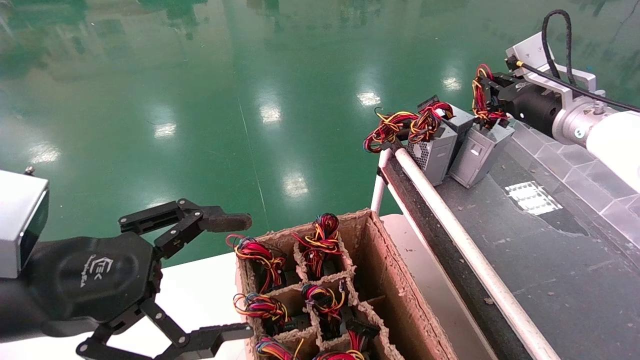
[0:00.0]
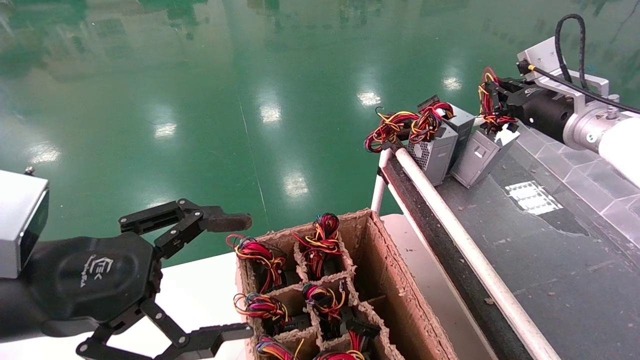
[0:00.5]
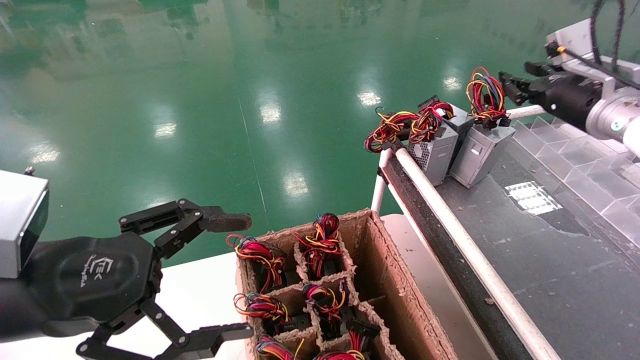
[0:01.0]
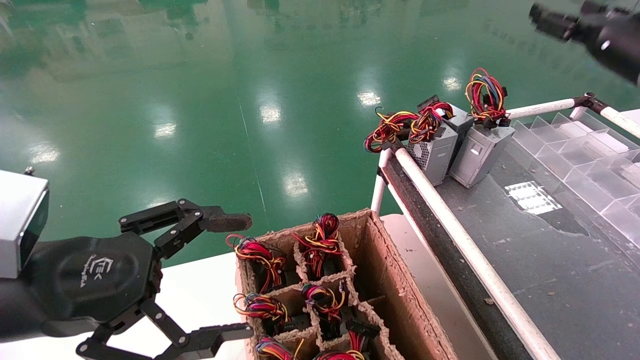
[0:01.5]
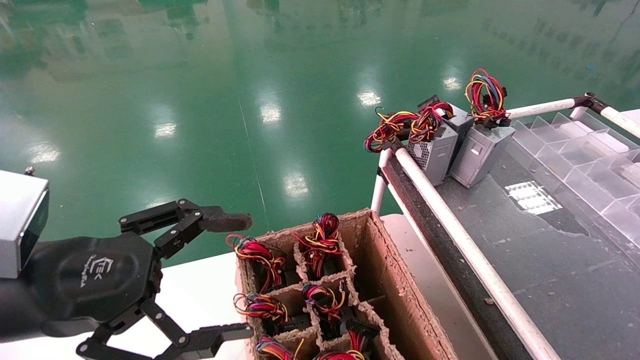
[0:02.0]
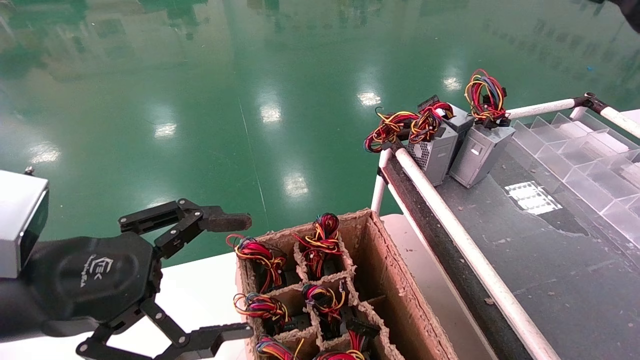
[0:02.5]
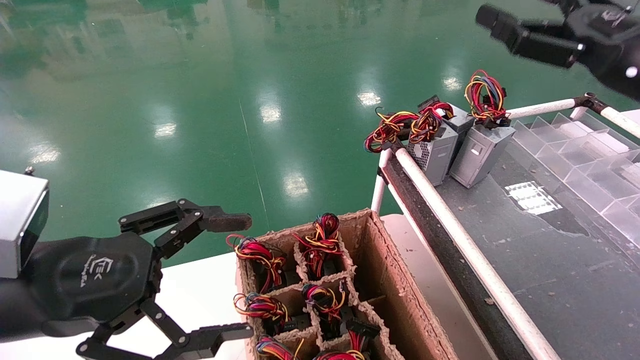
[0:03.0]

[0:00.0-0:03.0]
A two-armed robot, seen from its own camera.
0:00.0 to 0:01.5: The right gripper heads upward and to the right, covering roughly 10 cm, and opens.
0:01.5 to 0:03.0: The right gripper is displaced backward and to the left by some 10 cm, and opens up.
